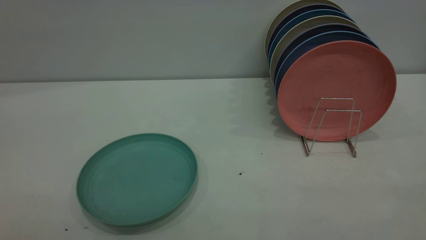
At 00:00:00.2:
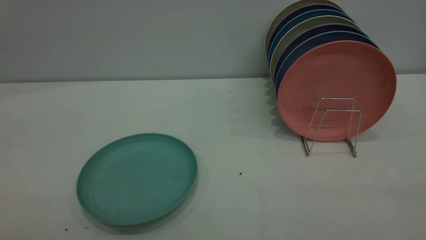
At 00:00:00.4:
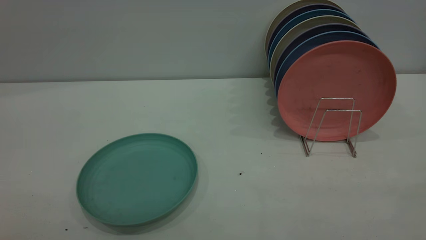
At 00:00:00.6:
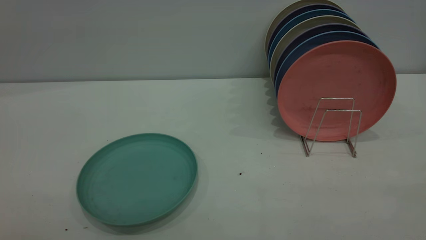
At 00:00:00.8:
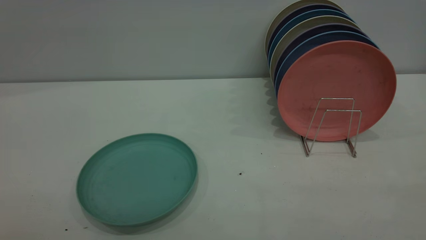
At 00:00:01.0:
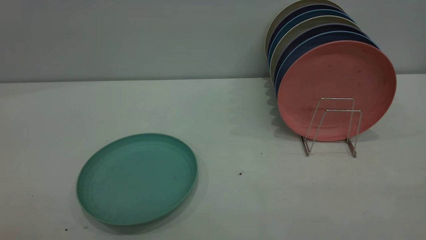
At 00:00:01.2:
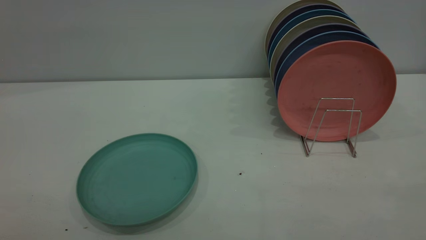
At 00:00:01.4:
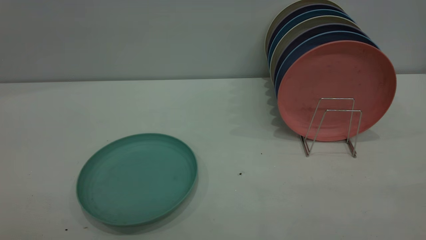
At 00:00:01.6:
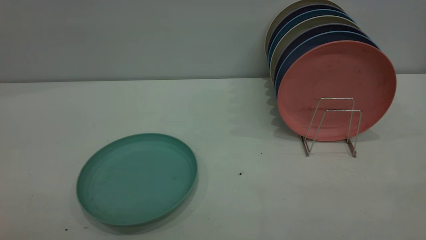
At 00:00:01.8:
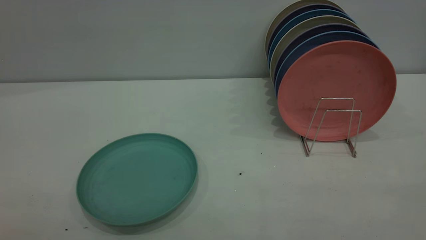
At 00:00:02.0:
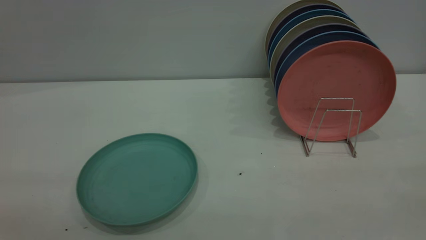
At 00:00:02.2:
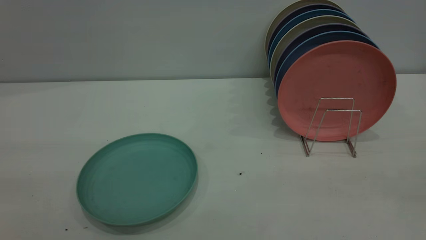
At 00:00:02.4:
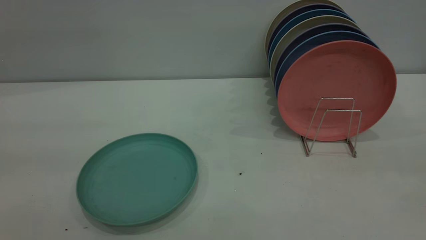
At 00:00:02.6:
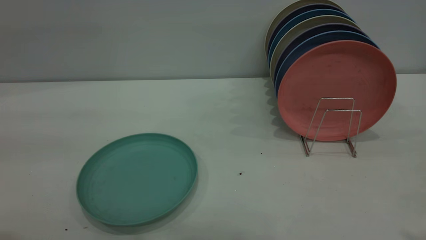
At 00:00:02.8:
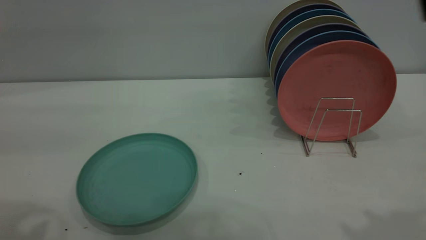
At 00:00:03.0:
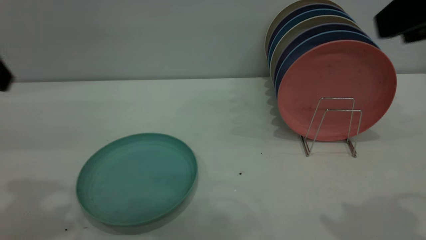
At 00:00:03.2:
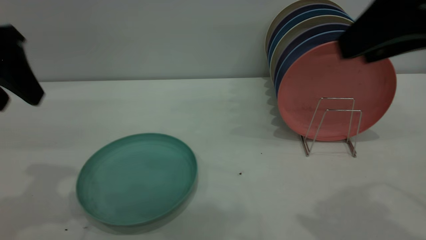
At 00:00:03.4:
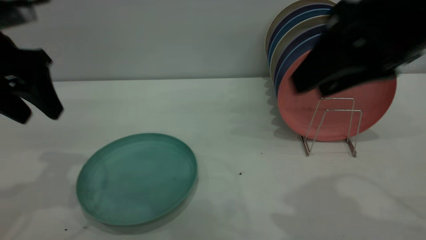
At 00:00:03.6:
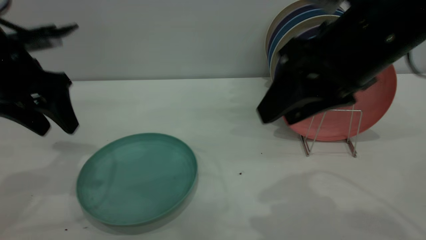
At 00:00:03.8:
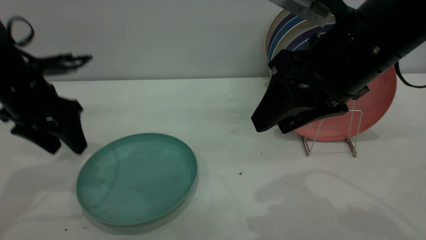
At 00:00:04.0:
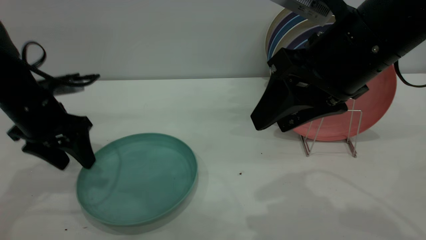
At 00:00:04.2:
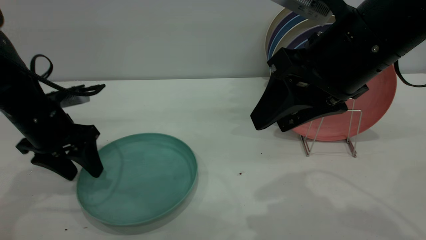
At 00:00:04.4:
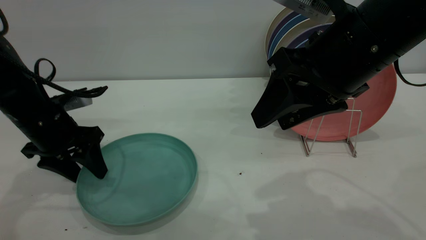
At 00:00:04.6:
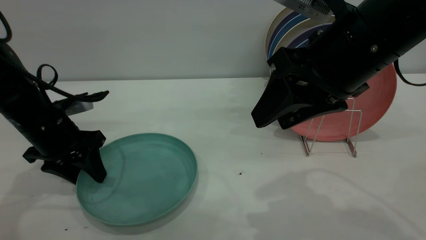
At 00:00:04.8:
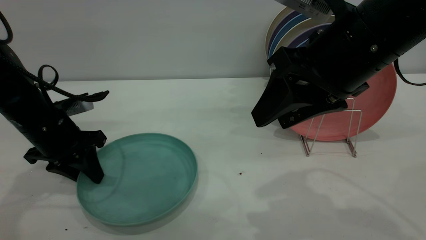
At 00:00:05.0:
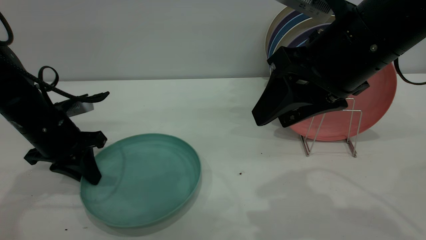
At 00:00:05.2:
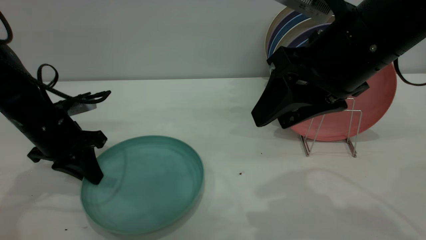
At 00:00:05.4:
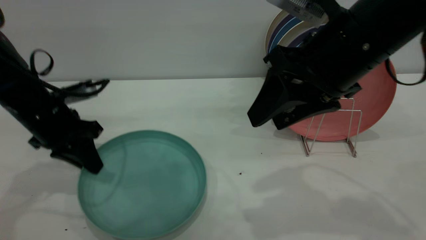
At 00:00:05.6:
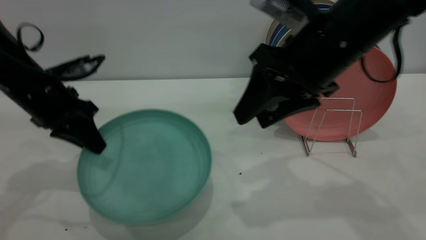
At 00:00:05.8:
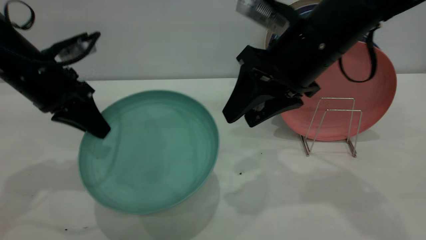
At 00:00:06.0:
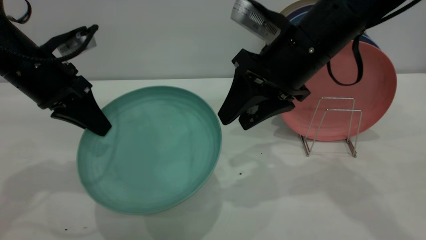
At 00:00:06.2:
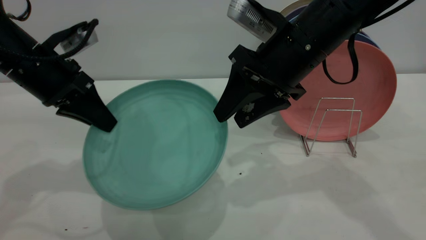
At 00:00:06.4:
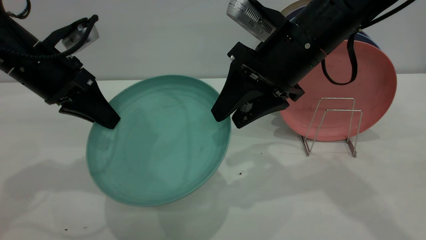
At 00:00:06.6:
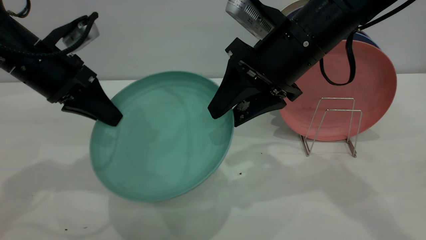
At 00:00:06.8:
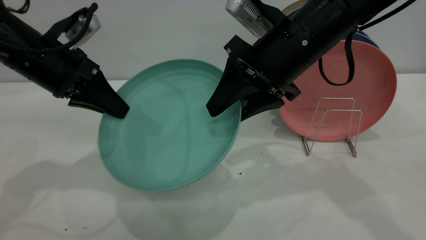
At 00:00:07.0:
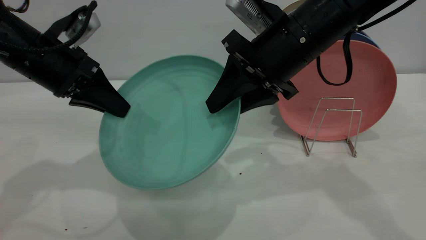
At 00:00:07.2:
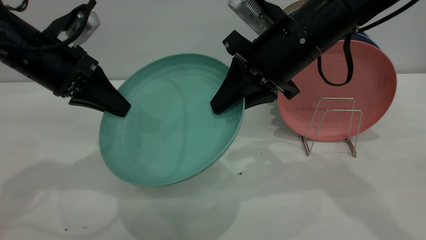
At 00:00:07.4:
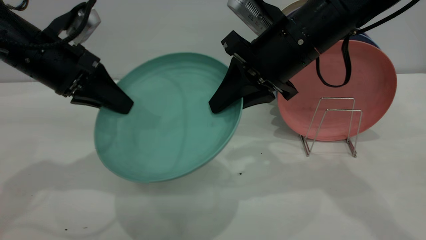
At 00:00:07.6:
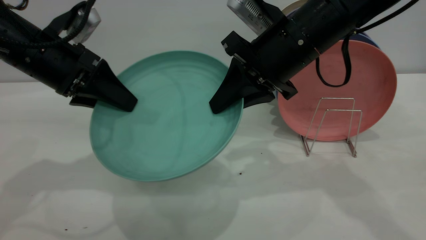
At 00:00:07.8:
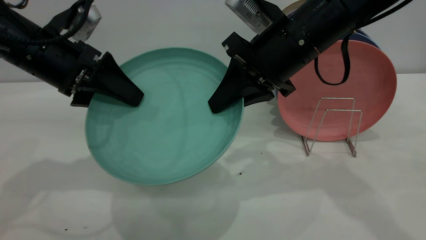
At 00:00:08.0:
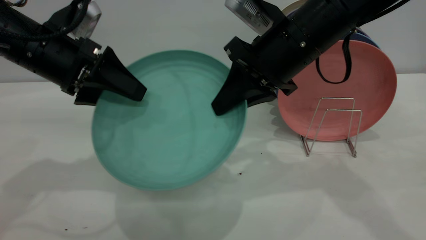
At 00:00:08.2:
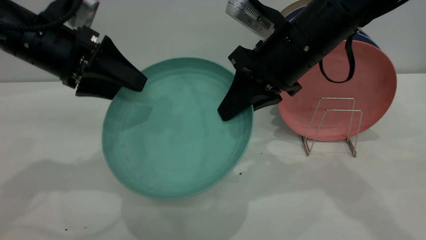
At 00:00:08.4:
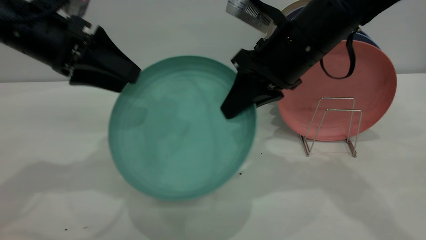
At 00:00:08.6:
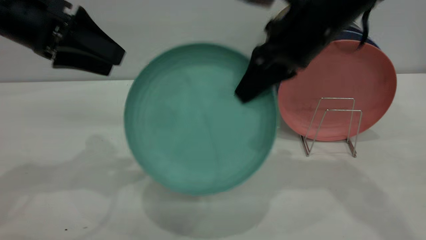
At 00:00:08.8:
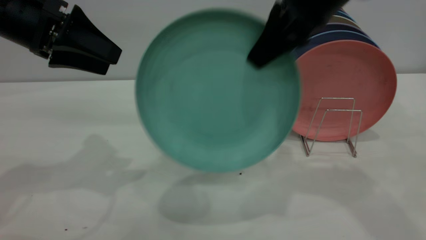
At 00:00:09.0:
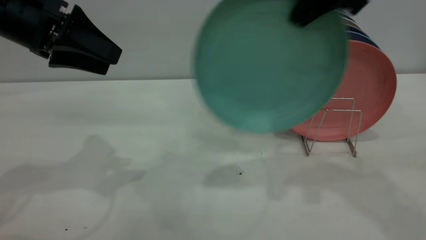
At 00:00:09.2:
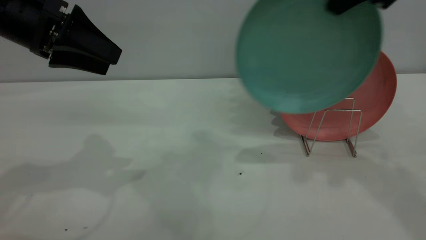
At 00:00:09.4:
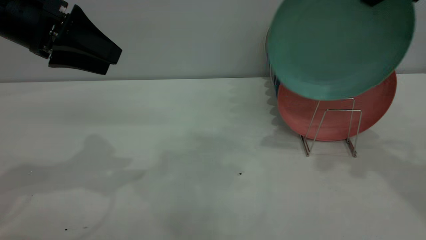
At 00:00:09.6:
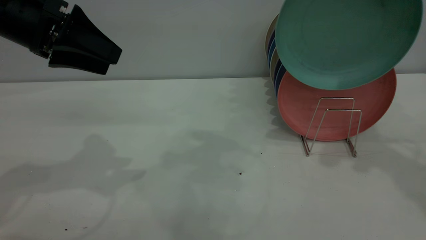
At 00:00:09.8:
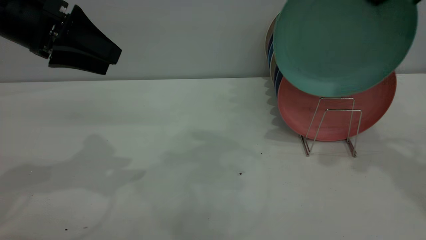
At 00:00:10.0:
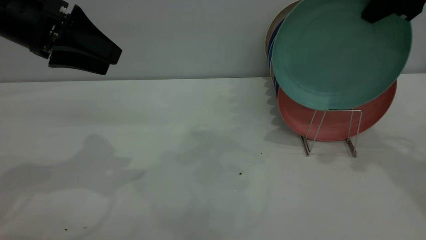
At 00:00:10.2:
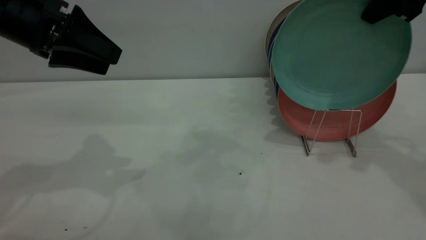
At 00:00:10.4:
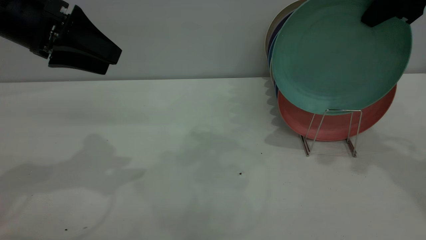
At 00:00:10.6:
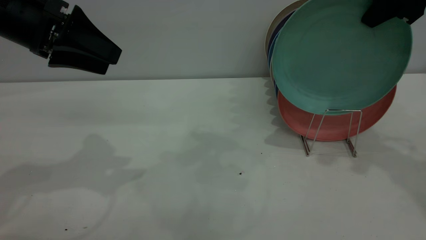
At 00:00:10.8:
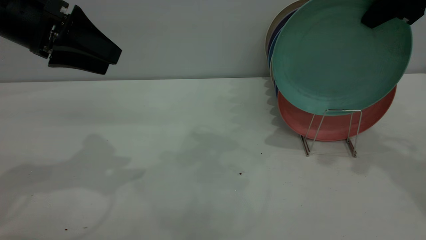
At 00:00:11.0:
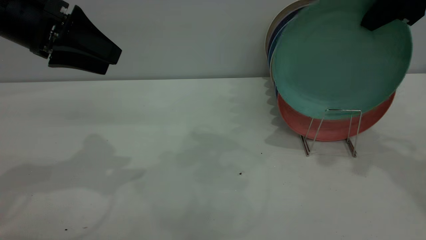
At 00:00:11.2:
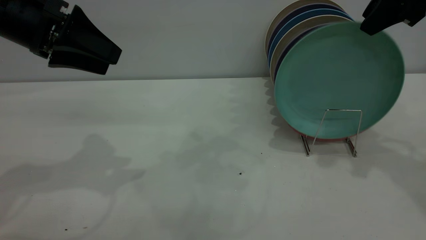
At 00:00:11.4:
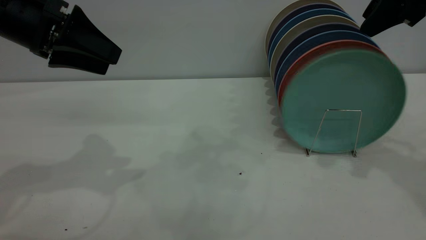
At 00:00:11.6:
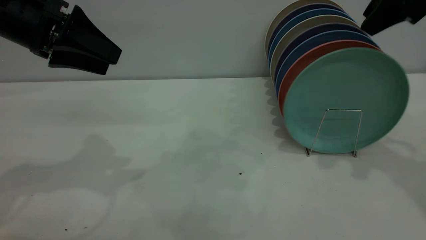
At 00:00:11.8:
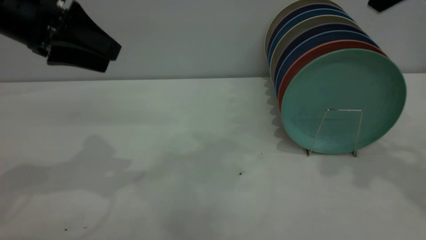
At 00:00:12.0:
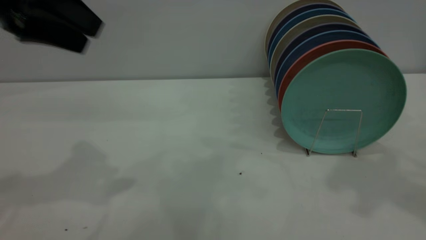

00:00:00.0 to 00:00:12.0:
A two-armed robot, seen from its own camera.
Task of the whole recording: the left gripper grasp the green plate, the left gripper pass the green plate to the right gripper, and the right gripper place the green plate on the plate rack.
Step, 00:00:00.0 to 00:00:05.4: Pick up the plate with the left gripper.
Step, 00:00:05.8 to 00:00:08.8: Pass the plate from the left gripper to the right gripper.
Step, 00:00:09.0 to 00:00:11.6: Place the plate on the shelf.
00:00:00.0 to 00:00:01.6: Both grippers stay about where they are.
00:00:01.6 to 00:00:03.0: The right gripper travels forward by roughly 25 cm.
00:00:03.0 to 00:00:04.4: The right gripper is displaced to the left, downward and forward by approximately 15 cm; the left gripper goes approximately 25 cm downward and forward.
00:00:04.4 to 00:00:06.0: The right gripper travels forward by approximately 10 cm, while the left gripper goes about 10 cm upward, and closes up.
00:00:06.0 to 00:00:07.6: The left gripper opens, while the right gripper closes up.
00:00:07.6 to 00:00:09.0: The left gripper moves upward, approximately 5 cm. Meanwhile the right gripper goes approximately 15 cm upward and to the right.
00:00:09.0 to 00:00:10.4: The right gripper goes roughly 10 cm to the right.
00:00:10.4 to 00:00:12.0: The left gripper shifts about 5 cm upward, while the right gripper is displaced upward and backward by about 15 cm, and opens.
